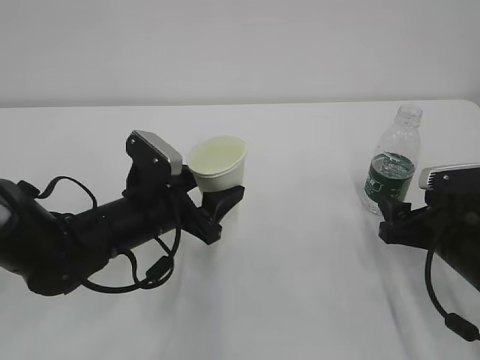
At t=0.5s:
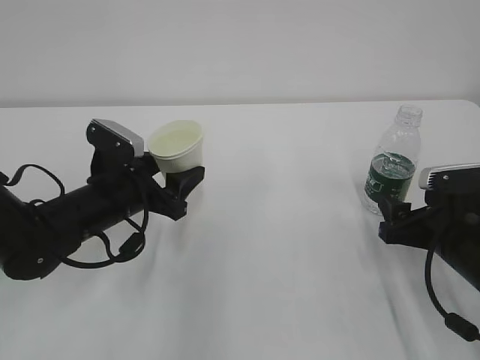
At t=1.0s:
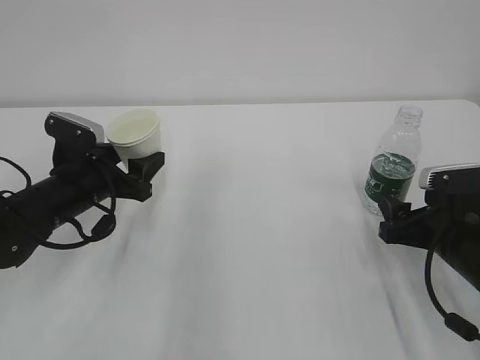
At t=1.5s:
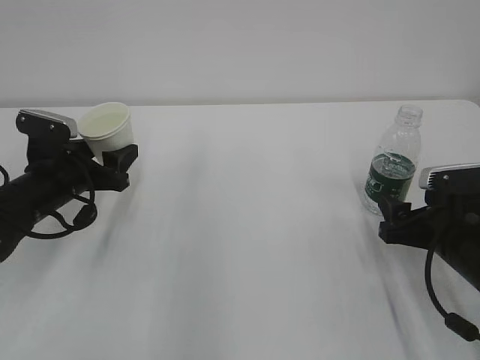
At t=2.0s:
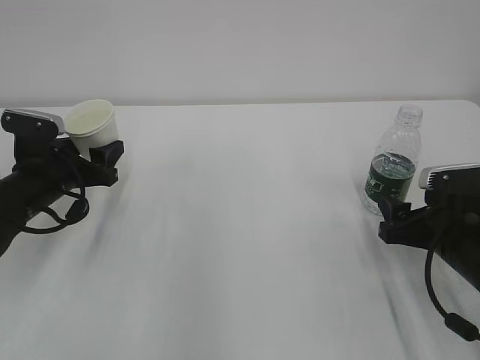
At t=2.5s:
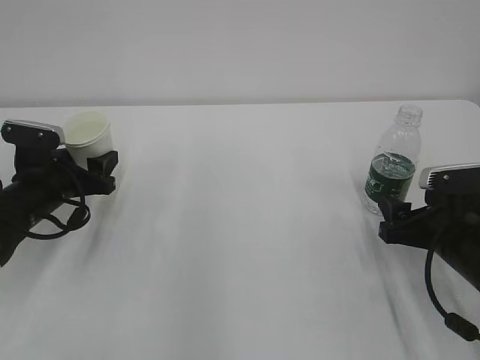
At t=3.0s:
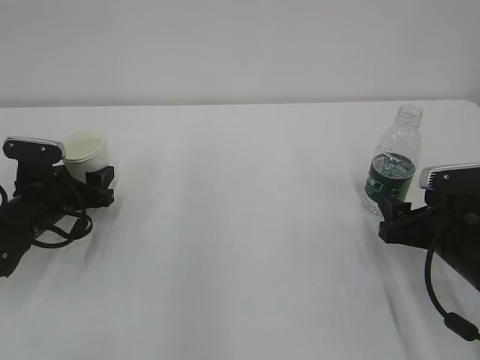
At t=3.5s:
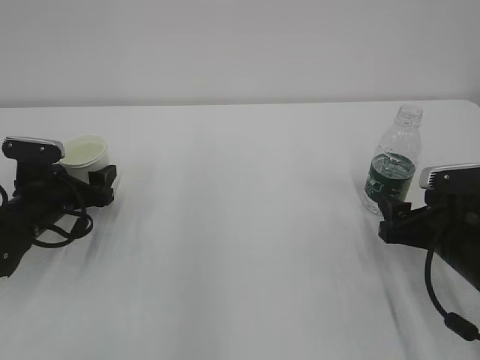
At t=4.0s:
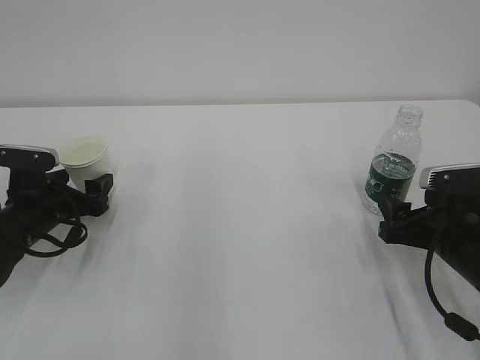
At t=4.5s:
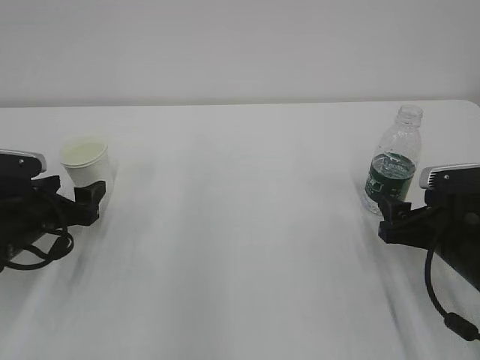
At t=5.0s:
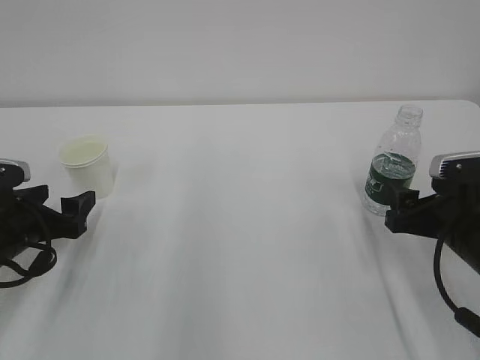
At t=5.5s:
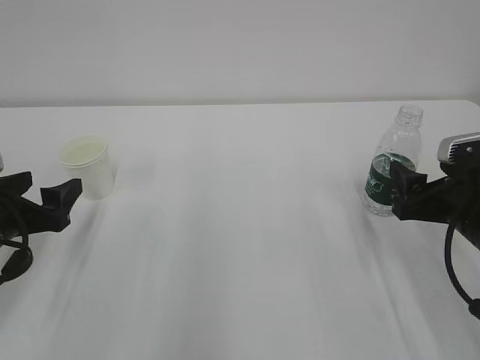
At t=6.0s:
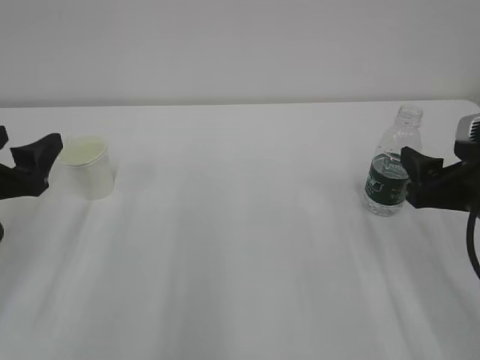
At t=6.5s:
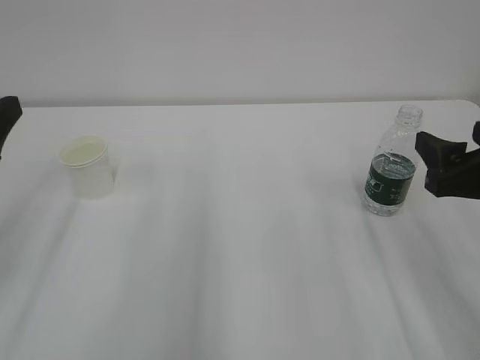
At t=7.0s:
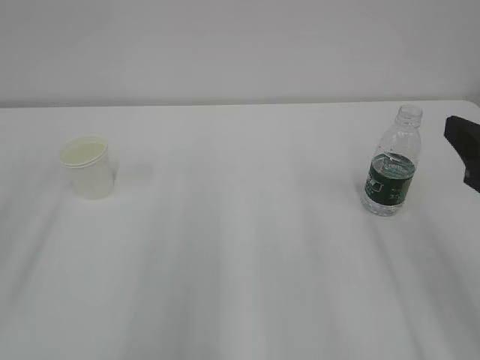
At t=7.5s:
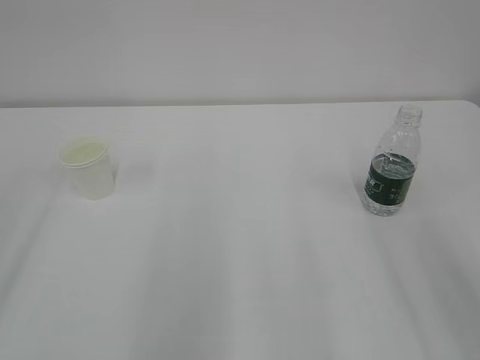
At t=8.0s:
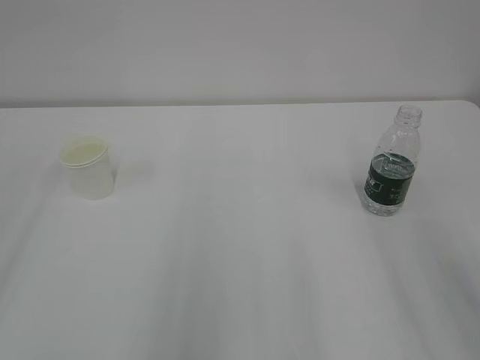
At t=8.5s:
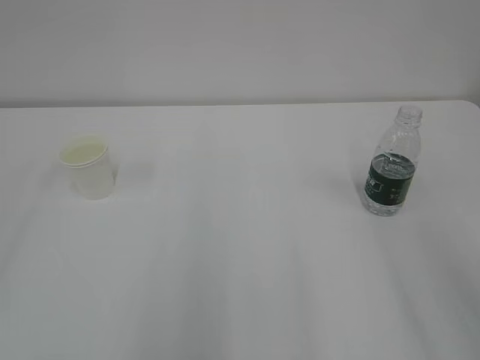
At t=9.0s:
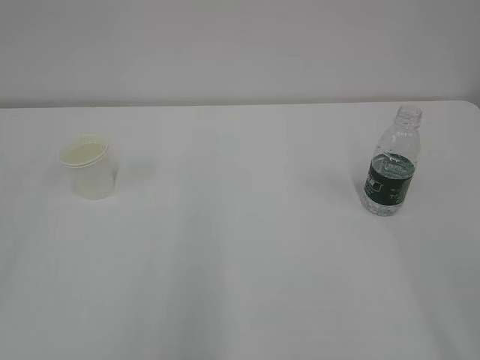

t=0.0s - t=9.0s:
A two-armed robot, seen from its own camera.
t=0.0s - t=2.0s: The left gripper moves to the left and forward, approximately 15 cm.
t=2.0s - t=4.5s: The left gripper ends up about 5 cm from where it was, and opens up.
t=4.5s - t=7.0s: The grippers both shift upward and backward by some 20 cm.
t=7.0s - t=9.0s: The right gripper moves backward and upward, roughly 15 cm.
